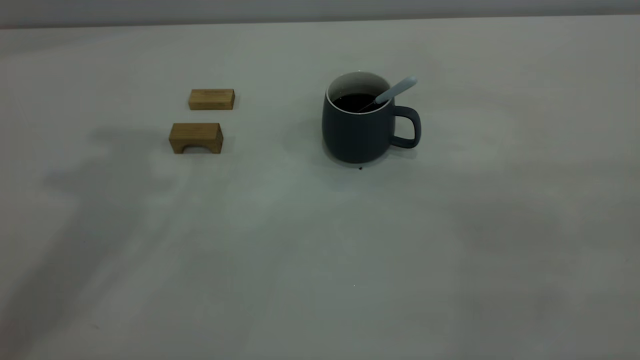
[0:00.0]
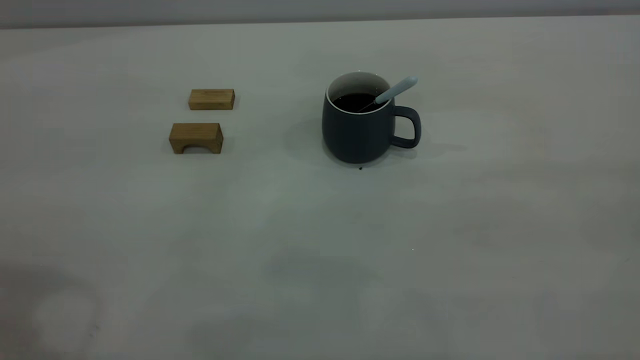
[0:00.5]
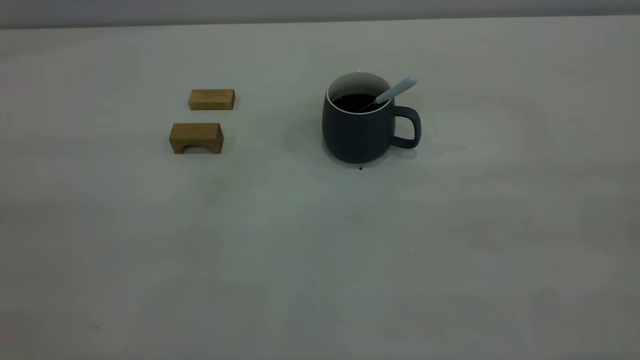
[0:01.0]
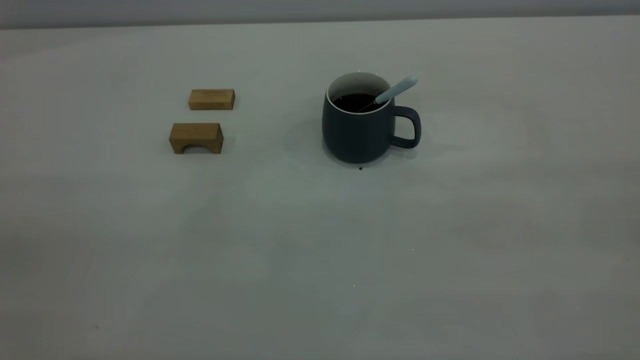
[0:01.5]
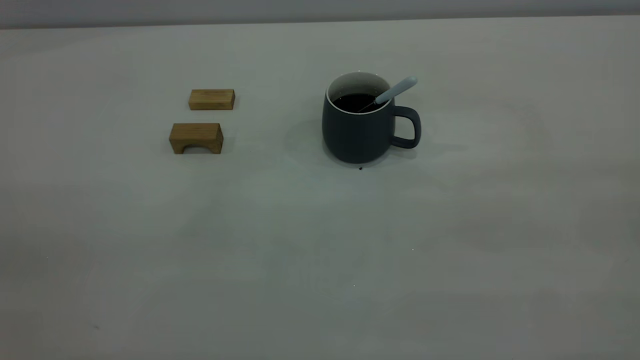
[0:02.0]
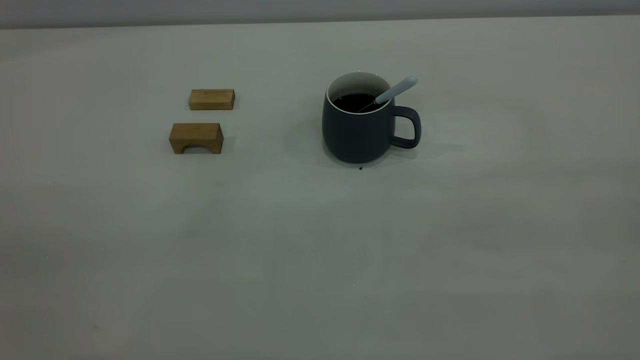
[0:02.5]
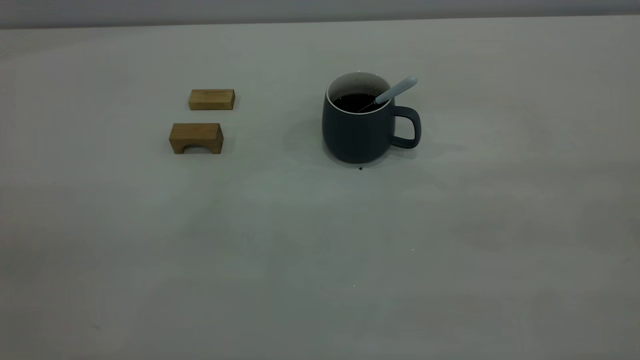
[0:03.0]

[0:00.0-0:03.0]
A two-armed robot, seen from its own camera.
0:01.5 to 0:03.0: Both grippers stay about where they are.

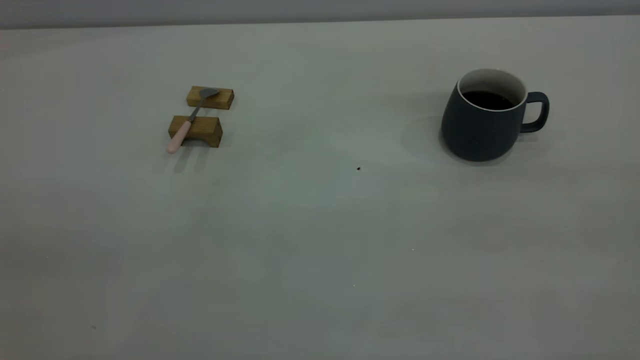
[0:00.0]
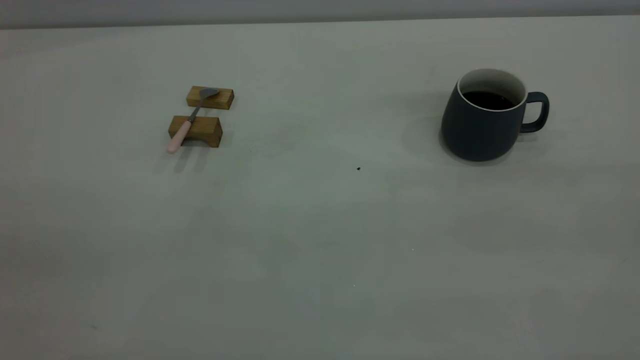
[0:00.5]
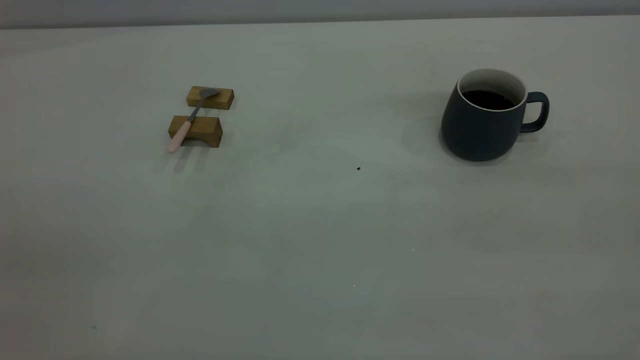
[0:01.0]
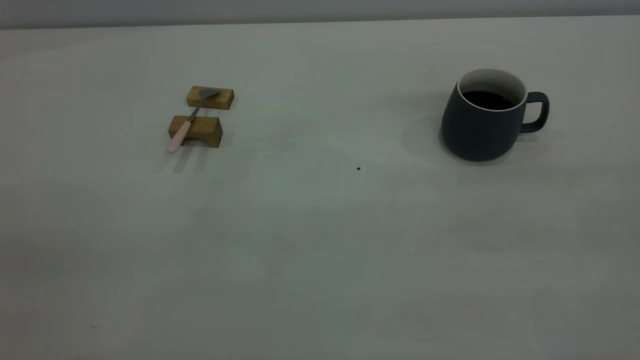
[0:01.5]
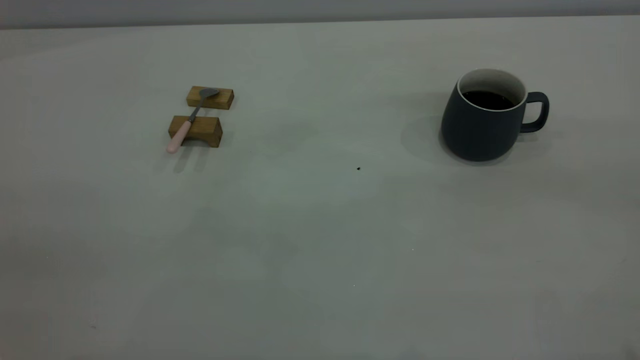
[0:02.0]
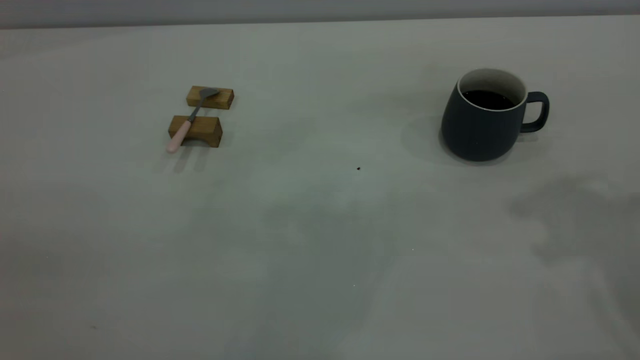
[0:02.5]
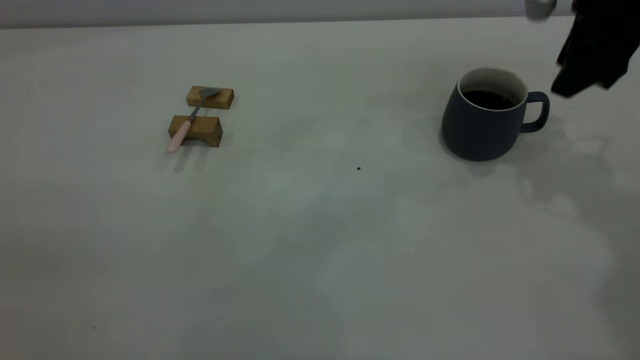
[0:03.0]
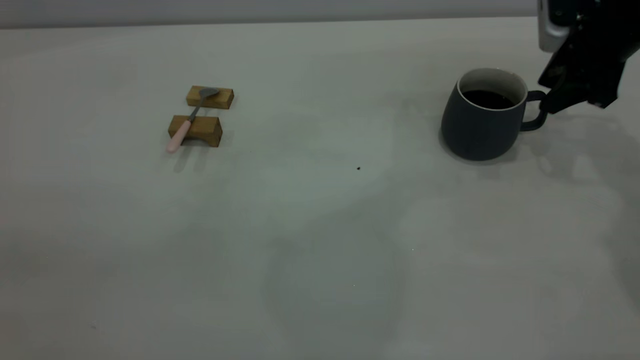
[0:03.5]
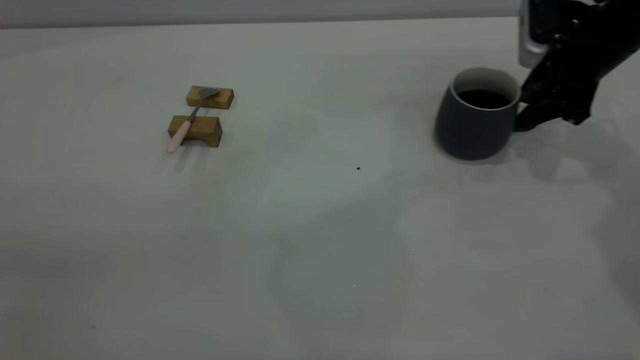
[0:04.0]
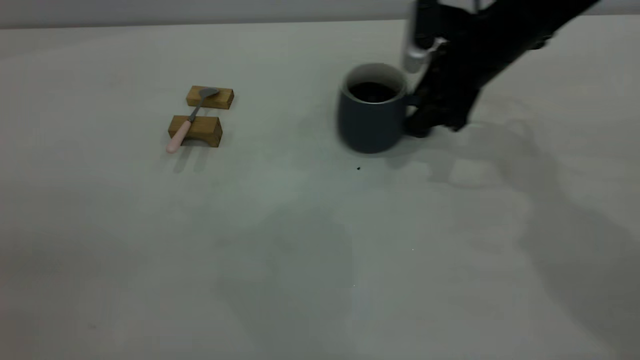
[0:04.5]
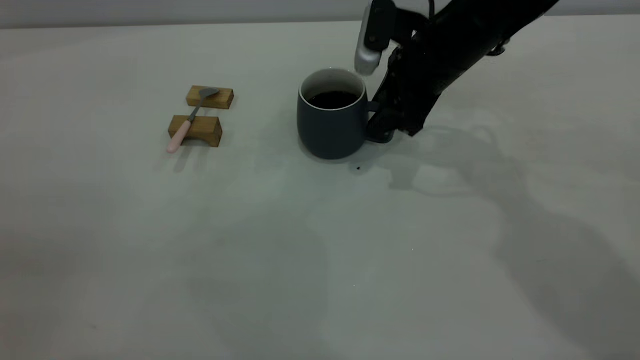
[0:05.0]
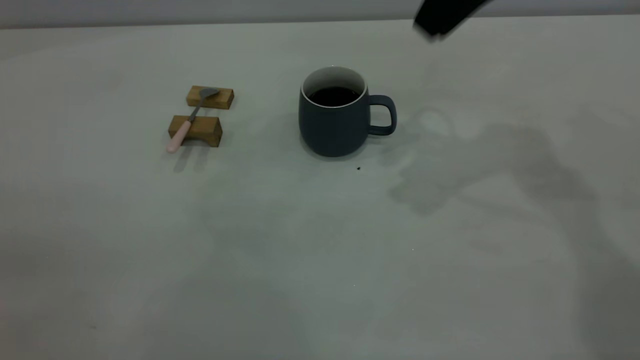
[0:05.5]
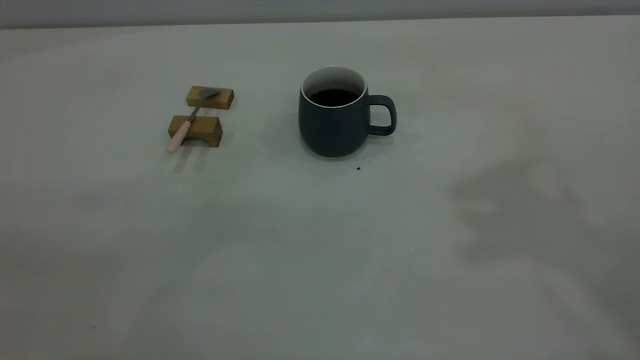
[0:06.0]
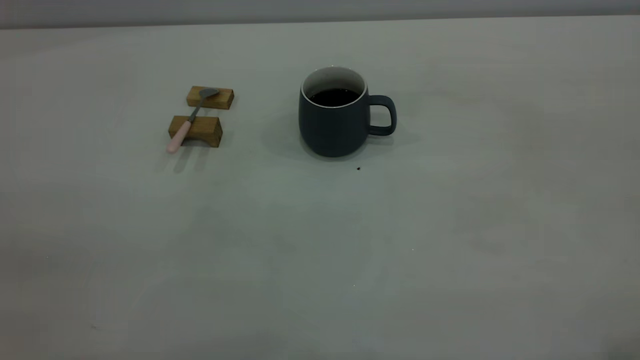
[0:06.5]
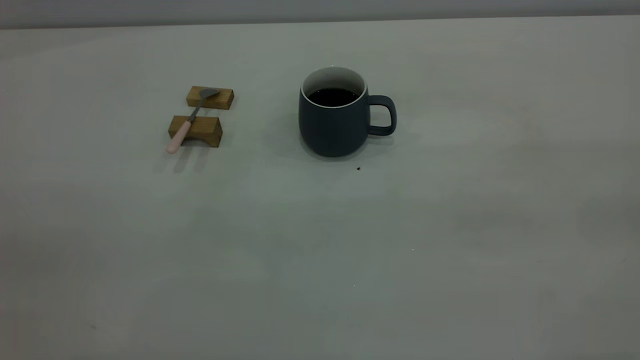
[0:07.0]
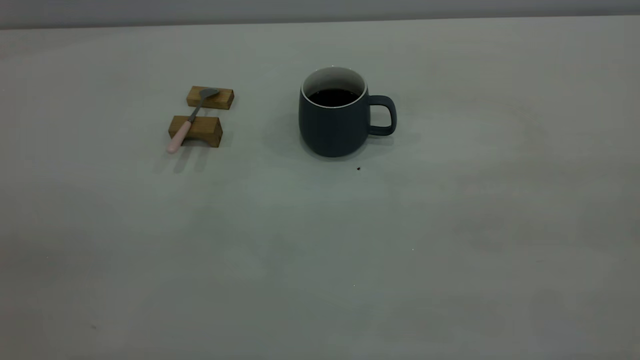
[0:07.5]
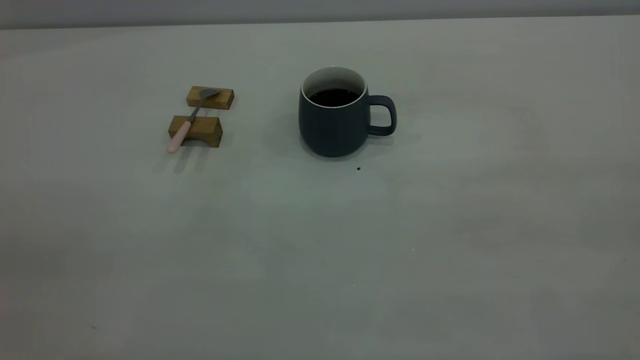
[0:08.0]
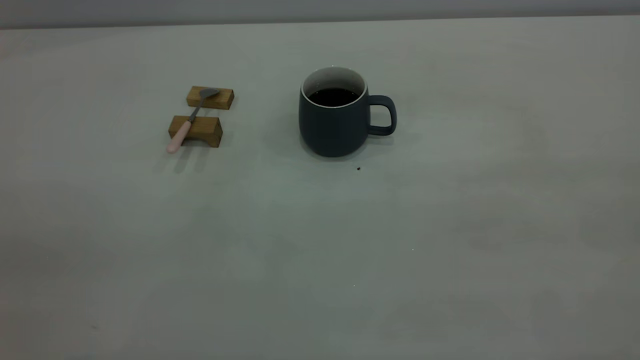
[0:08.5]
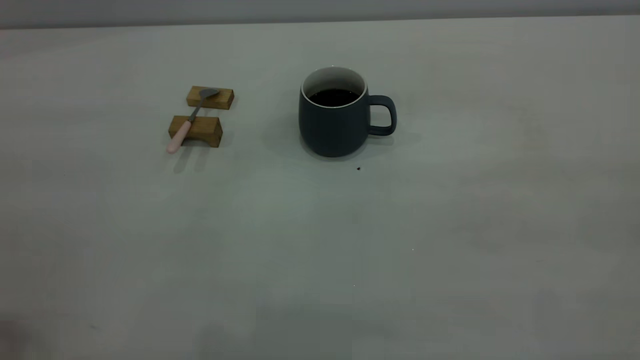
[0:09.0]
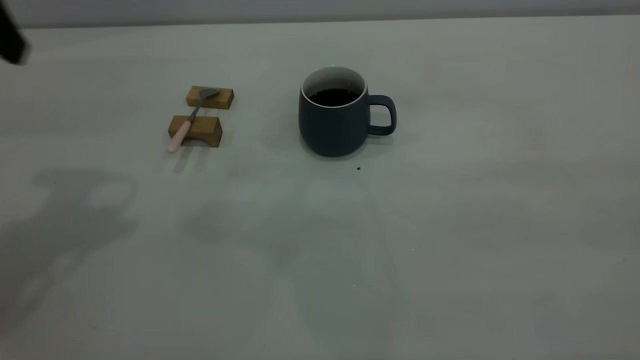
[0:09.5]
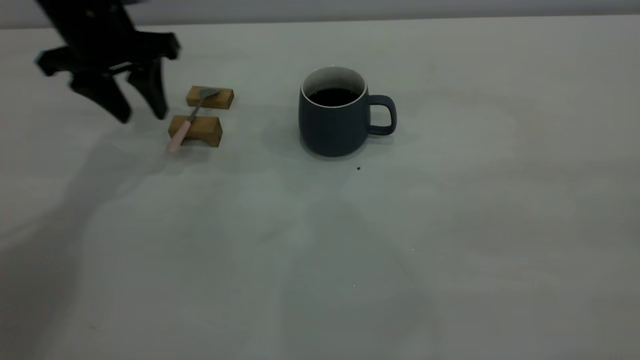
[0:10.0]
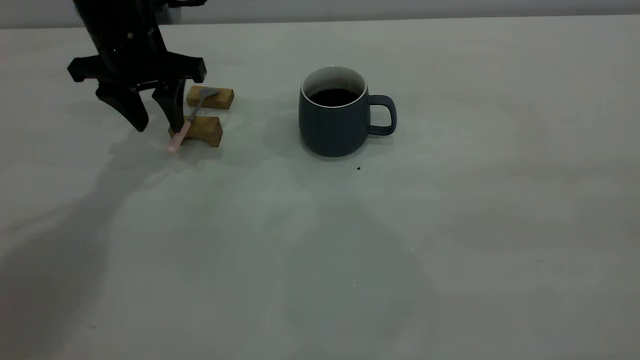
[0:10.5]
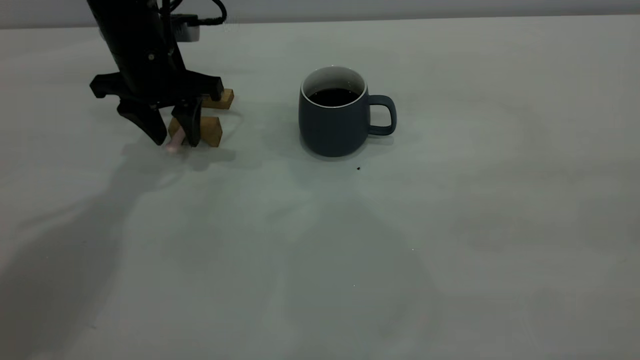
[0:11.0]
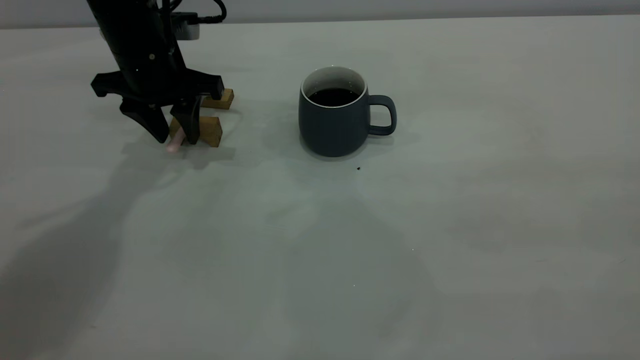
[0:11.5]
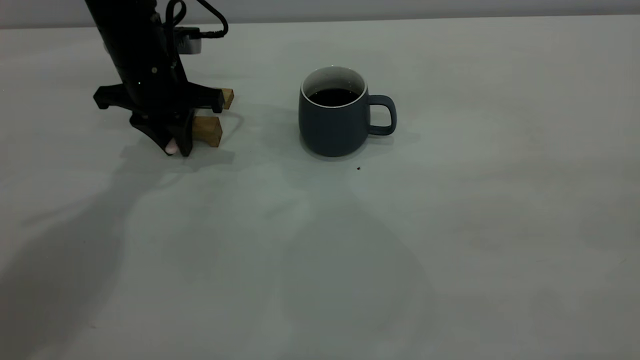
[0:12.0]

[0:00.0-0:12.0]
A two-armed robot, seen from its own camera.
Step, 0:00.0 to 0:05.0: Move the cup with coffee to the center of view.
0:02.0 to 0:04.0: The right gripper travels forward and downward by roughly 40 cm.
0:04.0 to 0:06.0: The right gripper shifts about 40 cm upward and backward.
0:08.0 to 0:10.0: The left gripper heads forward and downward, covering about 50 cm.
0:10.0 to 0:12.0: The left gripper heads downward, covering about 5 cm, and closes.

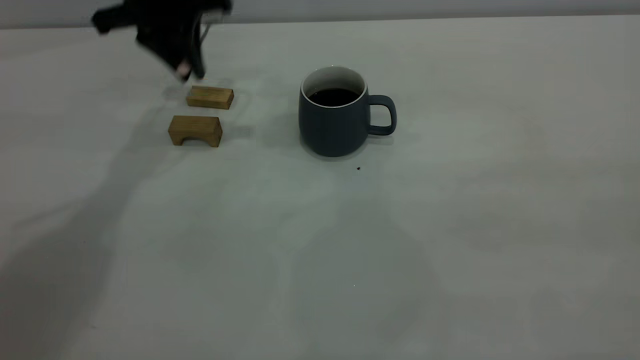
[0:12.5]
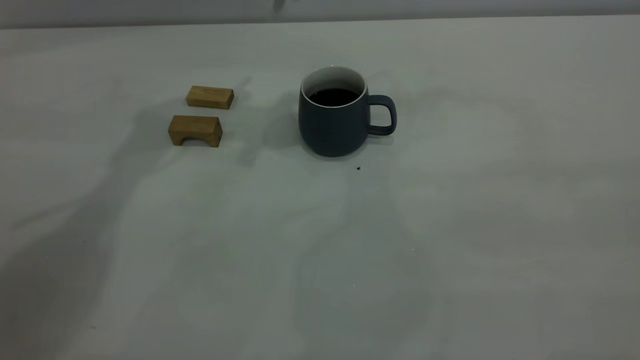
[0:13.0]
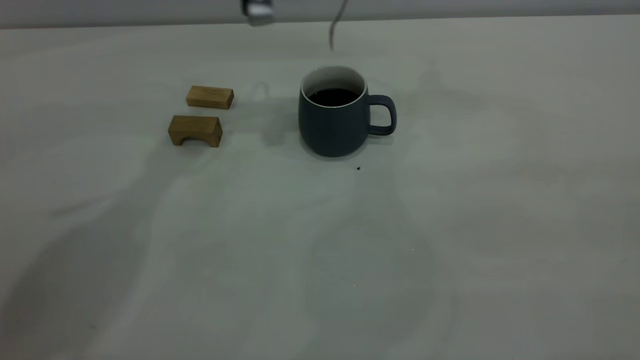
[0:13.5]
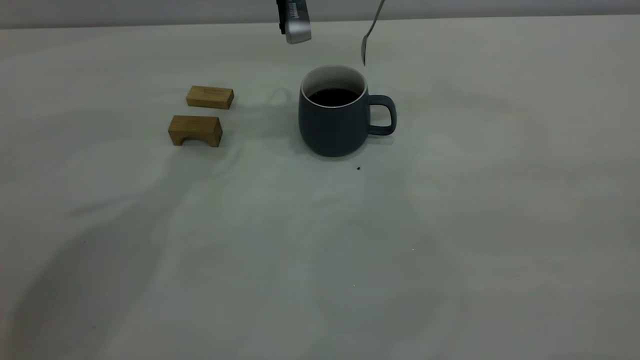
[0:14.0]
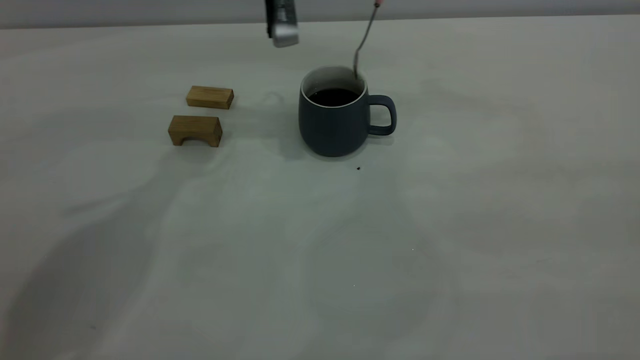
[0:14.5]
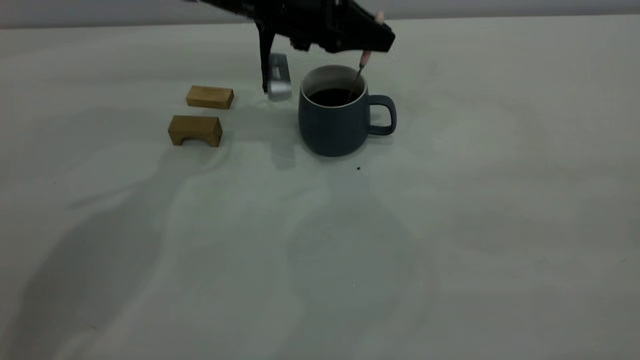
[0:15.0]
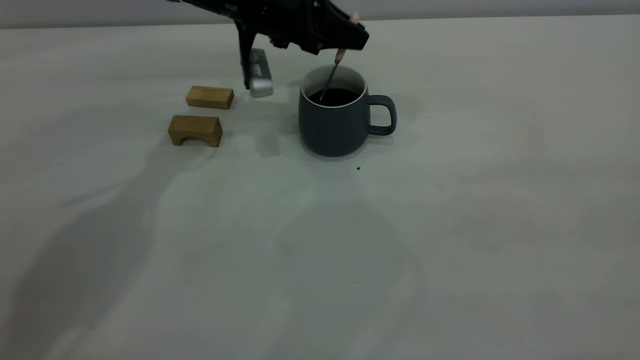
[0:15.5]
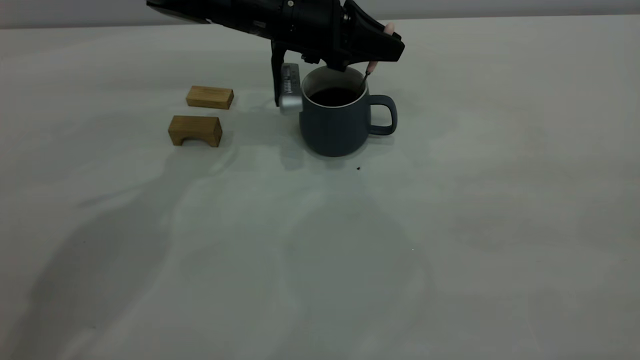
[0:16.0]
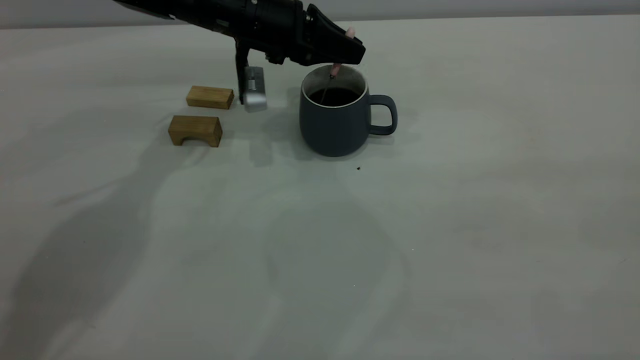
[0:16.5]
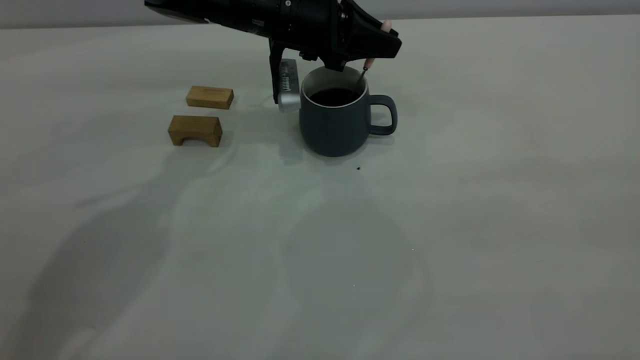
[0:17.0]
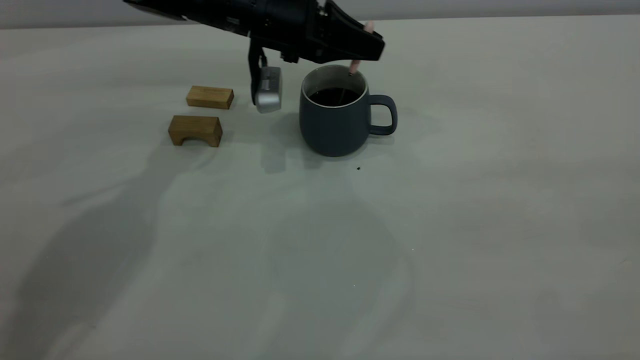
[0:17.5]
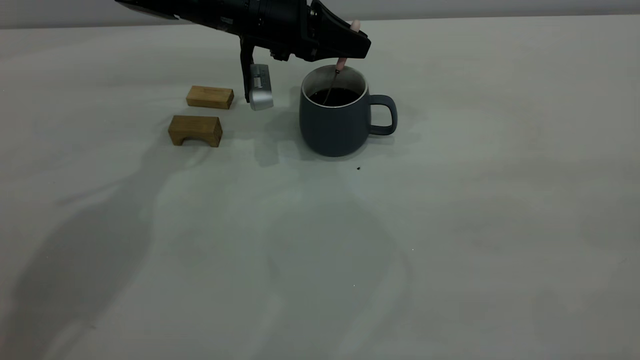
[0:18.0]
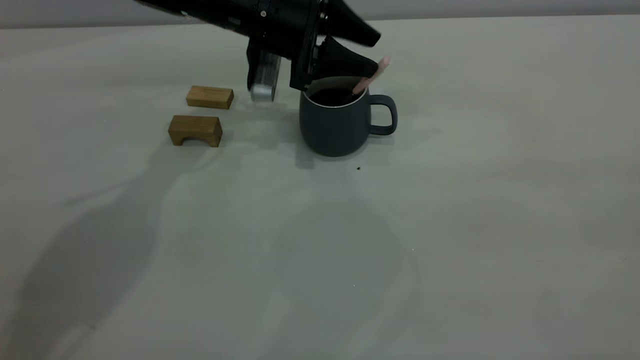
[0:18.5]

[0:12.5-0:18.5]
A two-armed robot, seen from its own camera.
0:12.5 to 0:14.5: The left gripper shifts approximately 10 cm to the right.
0:14.5 to 0:16.5: The left gripper goes some 10 cm downward.
0:16.5 to 0:18.5: The left gripper opens its fingers.
